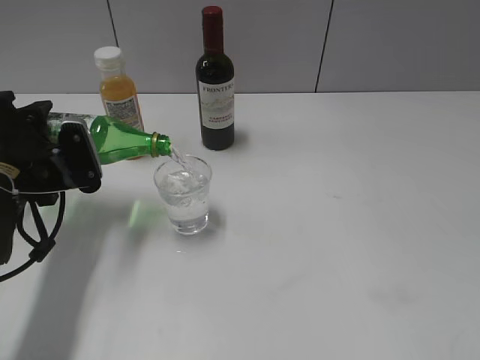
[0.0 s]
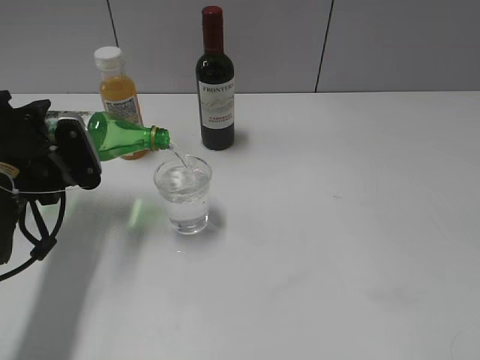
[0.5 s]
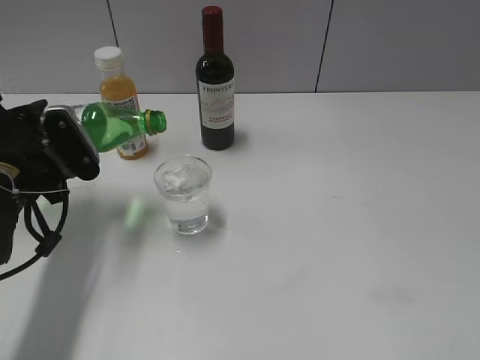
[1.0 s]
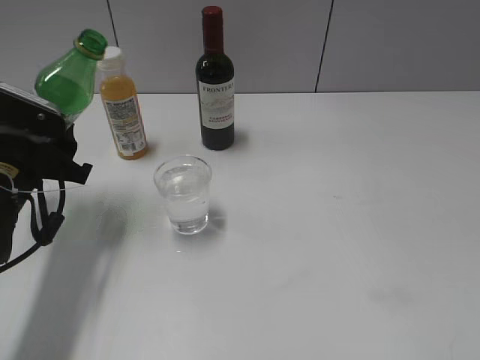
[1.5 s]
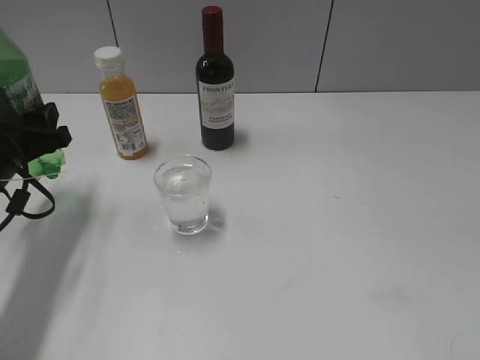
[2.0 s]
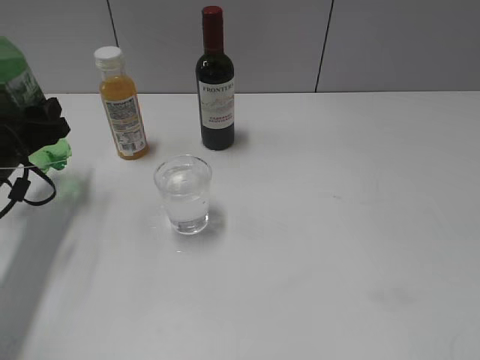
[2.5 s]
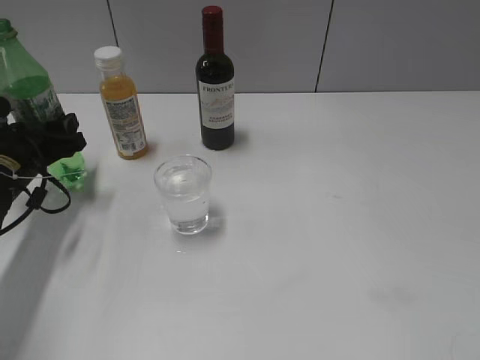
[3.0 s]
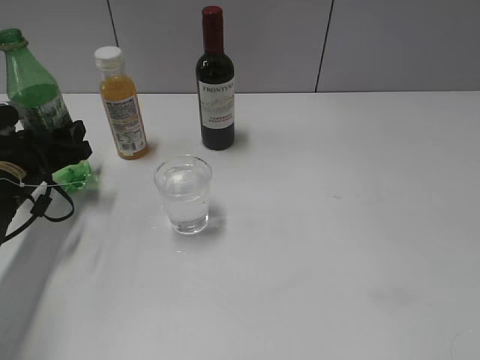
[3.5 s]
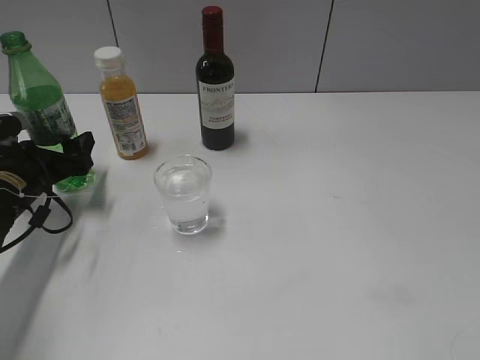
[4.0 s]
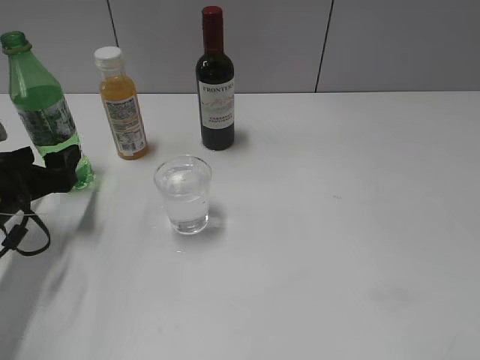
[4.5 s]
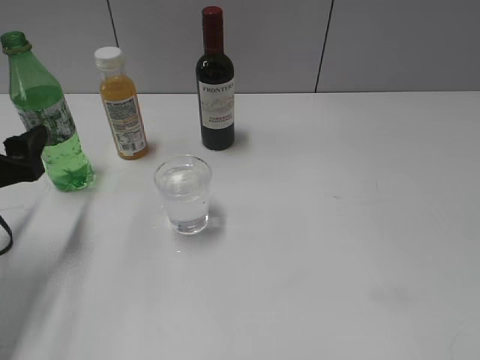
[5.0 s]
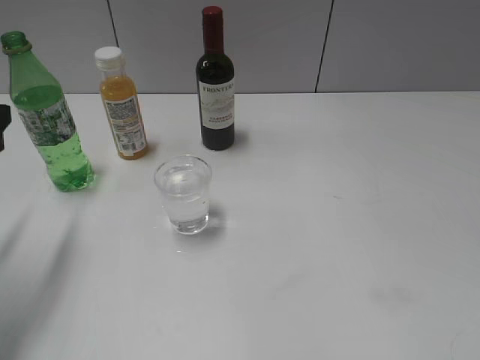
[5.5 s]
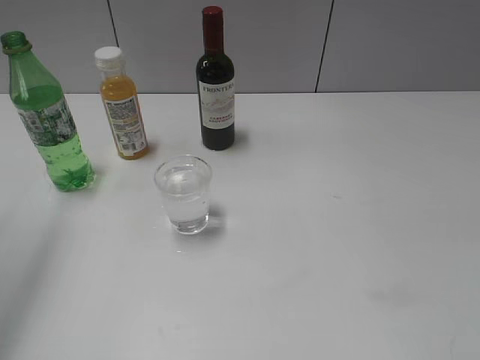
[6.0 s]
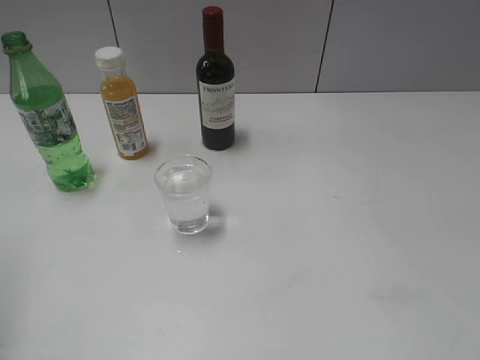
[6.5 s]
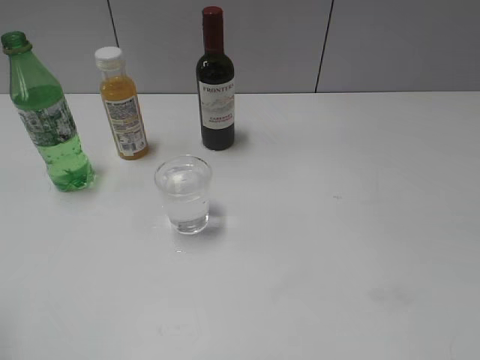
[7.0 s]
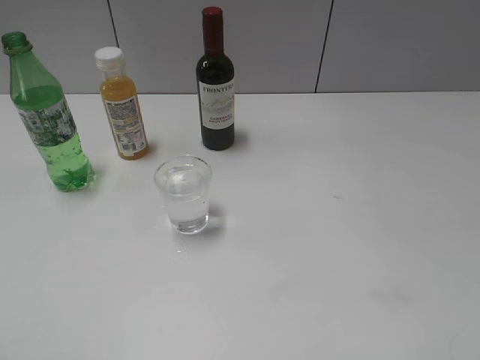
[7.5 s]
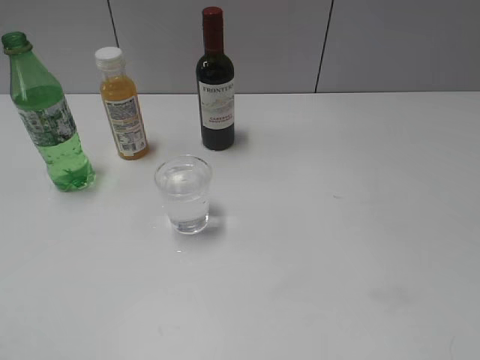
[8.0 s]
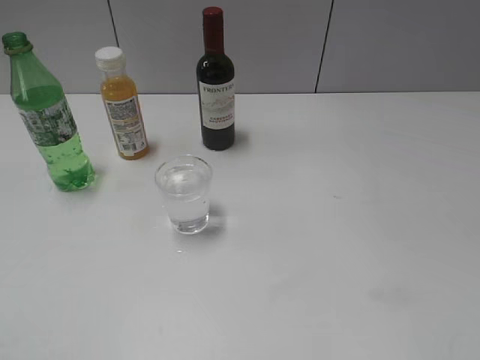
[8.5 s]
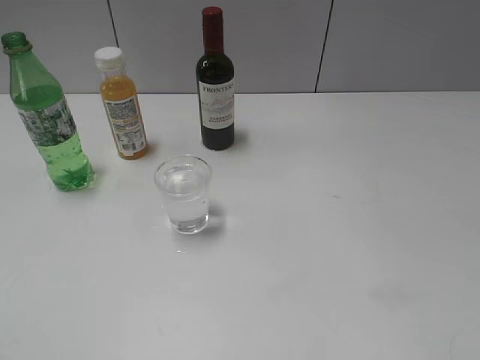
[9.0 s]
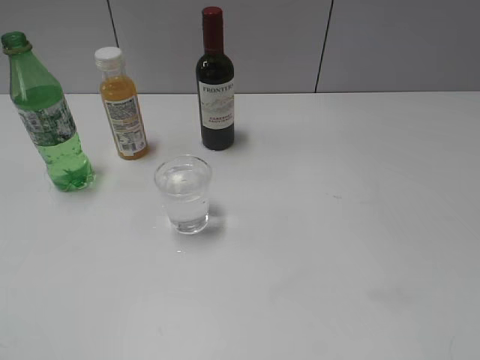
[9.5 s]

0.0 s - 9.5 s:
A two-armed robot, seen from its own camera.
Step, 1.5 s - 4.5 s: Place the sprite bottle on the table with left gripper.
2.0 s - 4.0 s: The left gripper shifts roughly 5 cm downward, and opens.
4.0 s - 5.5 s: The left gripper shifts about 15 cm upward and backward.
5.5 s - 7.5 s: The left gripper shifts approximately 15 cm backward.

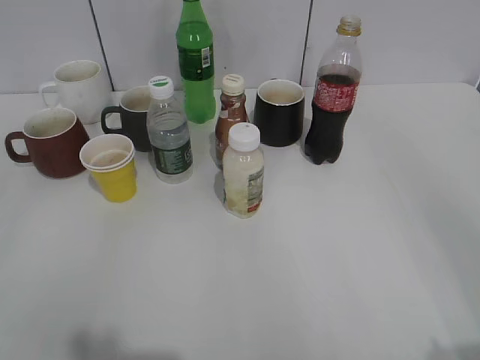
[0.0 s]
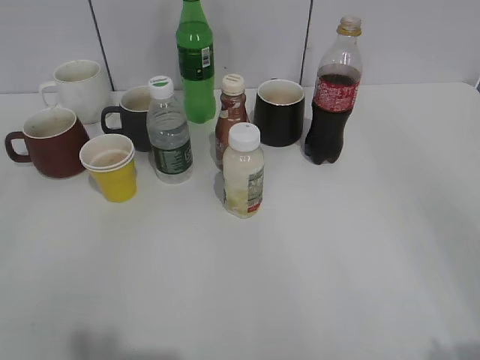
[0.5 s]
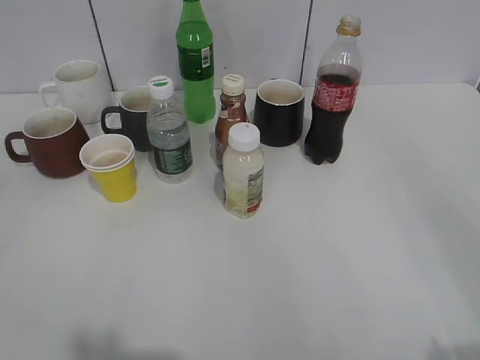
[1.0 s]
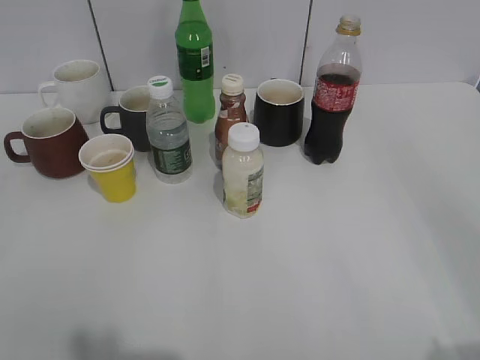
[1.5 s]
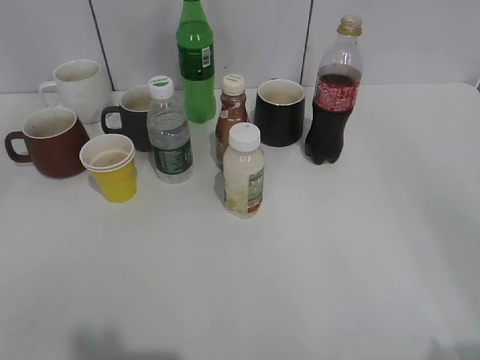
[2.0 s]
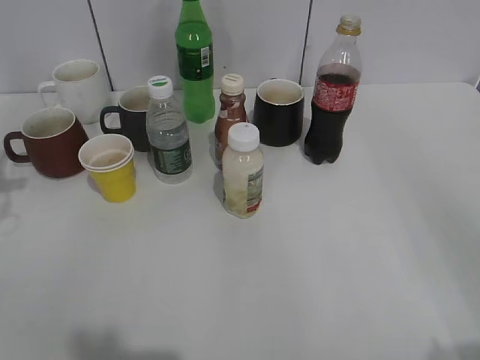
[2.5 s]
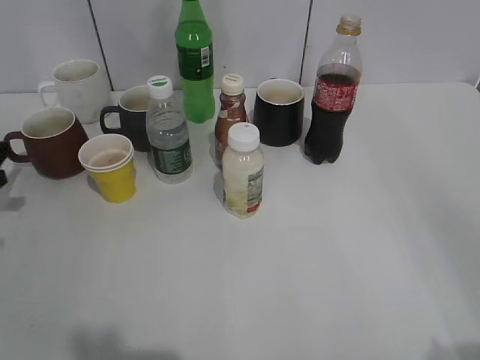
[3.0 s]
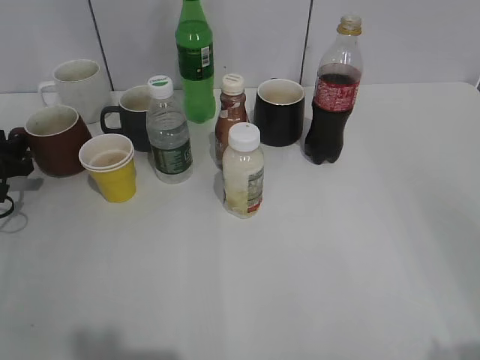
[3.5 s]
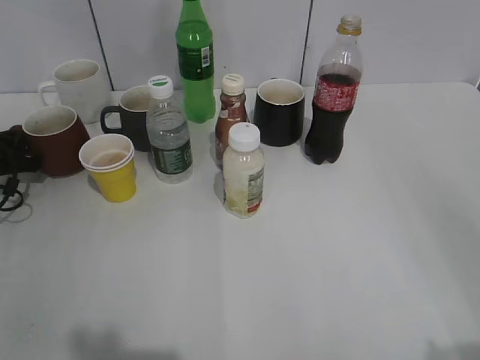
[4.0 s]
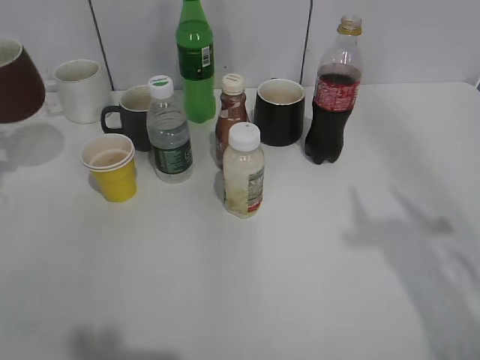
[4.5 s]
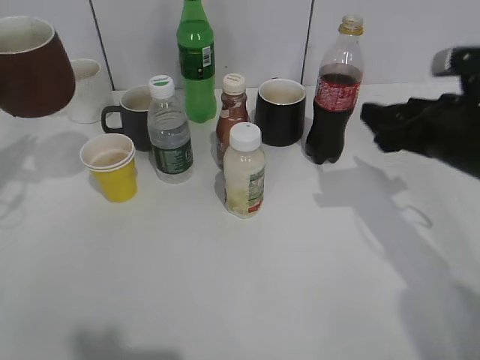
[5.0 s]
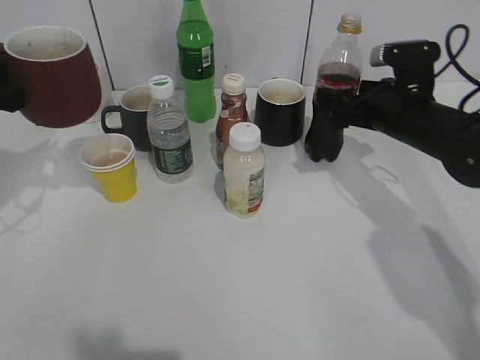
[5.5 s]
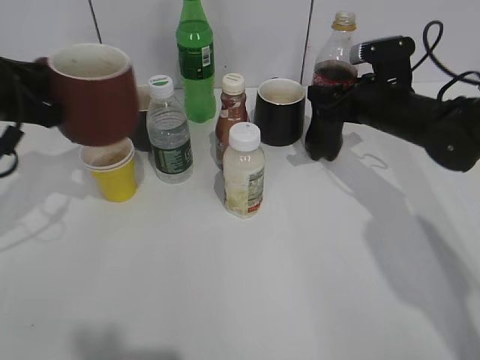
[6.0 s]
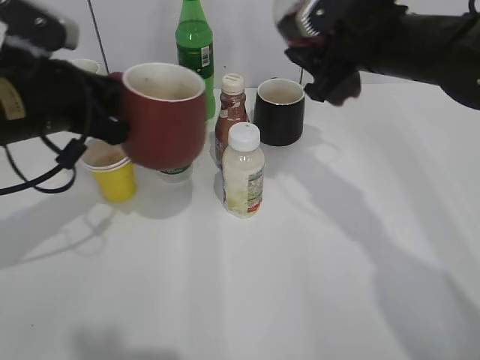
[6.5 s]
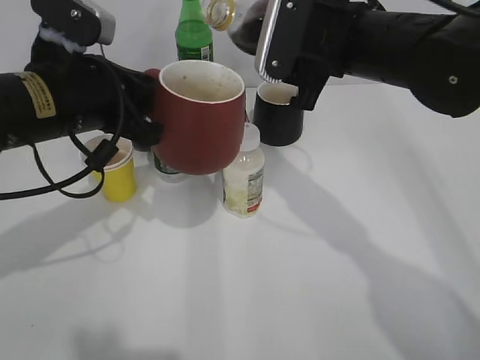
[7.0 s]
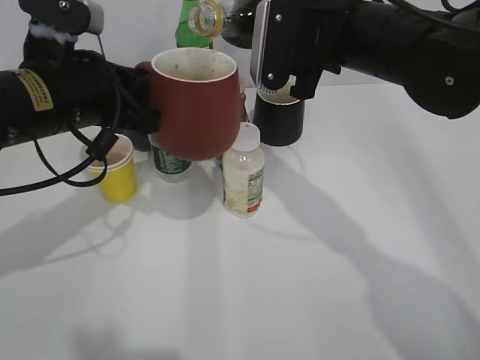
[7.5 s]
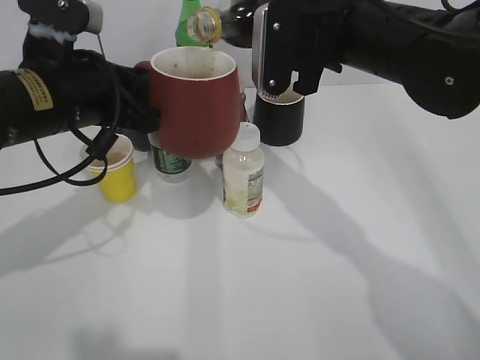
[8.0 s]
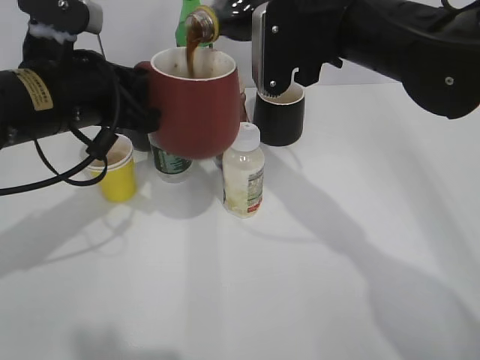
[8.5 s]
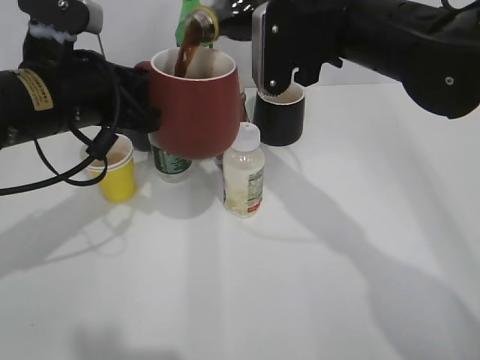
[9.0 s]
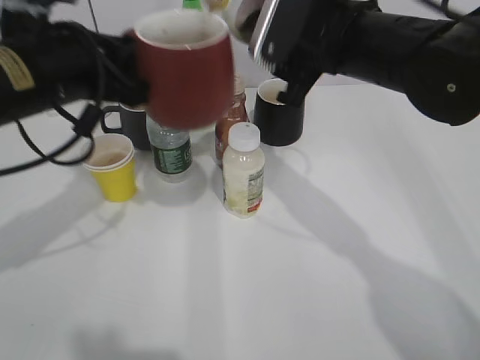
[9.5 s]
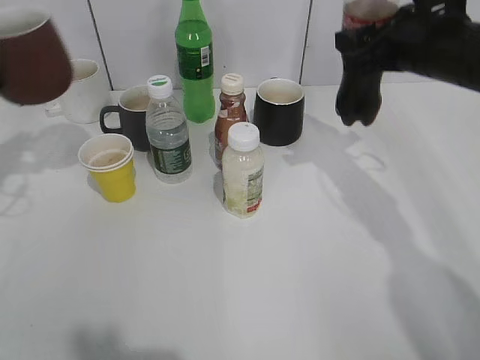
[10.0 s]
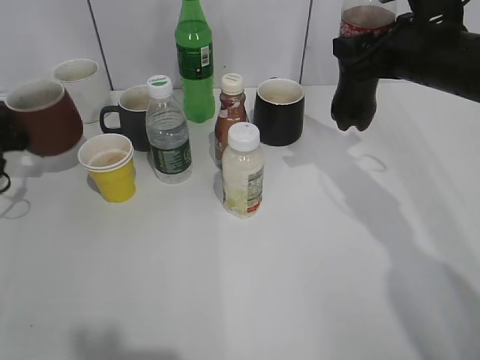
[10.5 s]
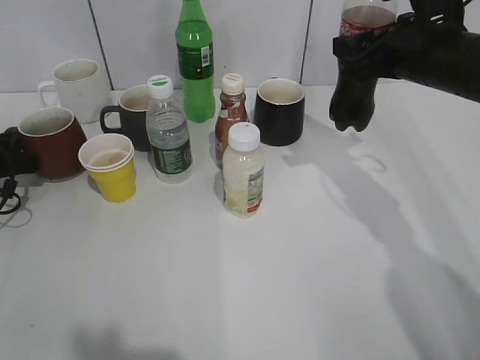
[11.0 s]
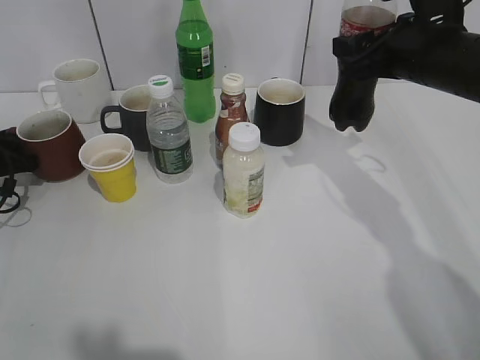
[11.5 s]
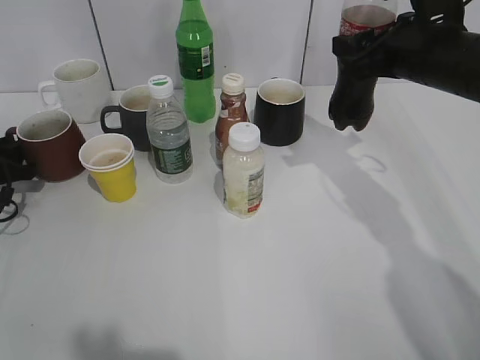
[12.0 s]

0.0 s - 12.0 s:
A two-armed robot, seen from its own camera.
Step, 1.5 s - 3.5 s: Grasp the red cup with left gripper.
Step, 4.5 s - 5.5 s: Grasp the bottle with cola with right gripper.
Step, 6.0 s - 9.5 s: Pour the cola from bottle to cup with right gripper.
2.0 s - 4.0 s: The left gripper goes about 40 cm downward and forward, and closes.
4.0 s - 6.0 s: The left gripper goes approximately 20 cm upward, to the right and backward. The right gripper is displaced forward by roughly 40 cm, and closes.
6.0 s - 8.0 s: The right gripper travels upward, to the left and backward by about 20 cm; the left gripper is displaced to the right by some 10 cm.
8.0 s - 10.0 s: The left gripper travels to the left by approximately 15 cm, while the right gripper shifts roughly 10 cm to the right.
10.0 s - 12.0 s: The left gripper shifts roughly 15 cm downward, and opens its fingers.

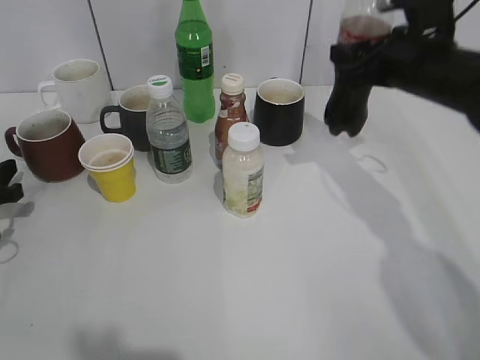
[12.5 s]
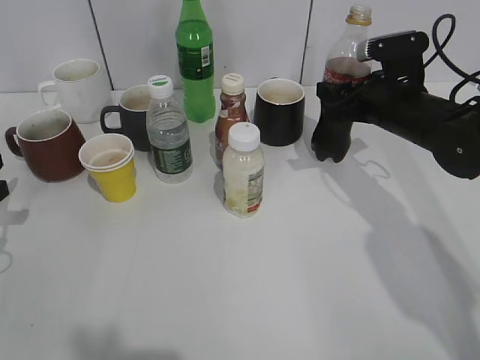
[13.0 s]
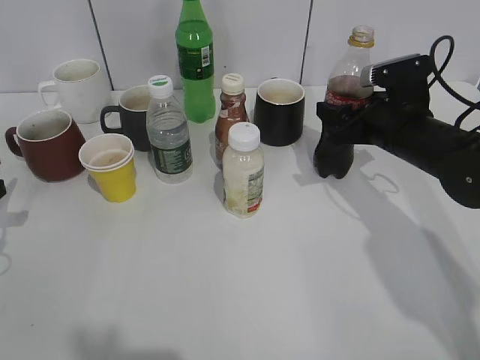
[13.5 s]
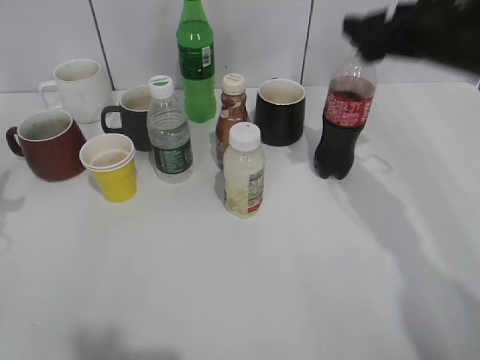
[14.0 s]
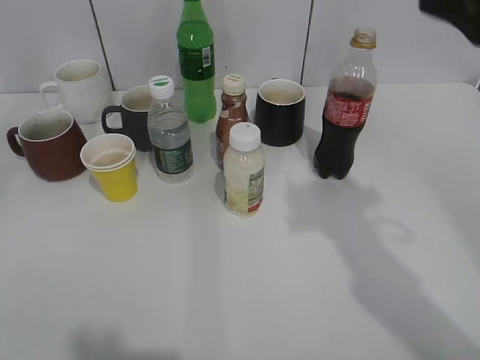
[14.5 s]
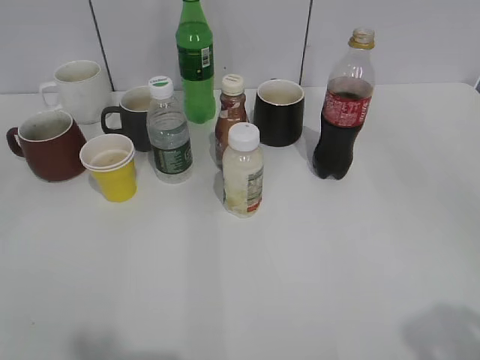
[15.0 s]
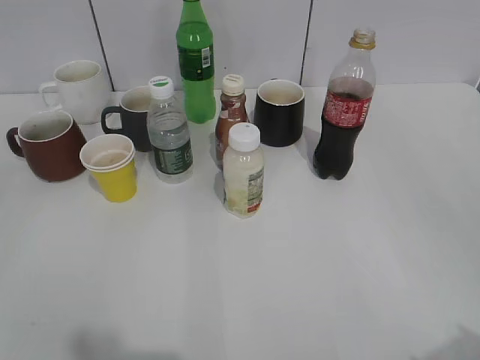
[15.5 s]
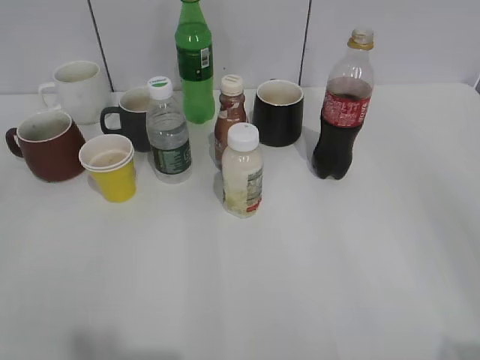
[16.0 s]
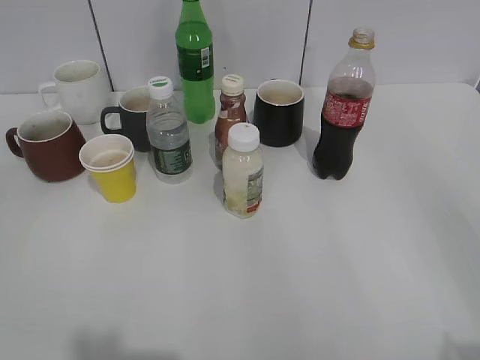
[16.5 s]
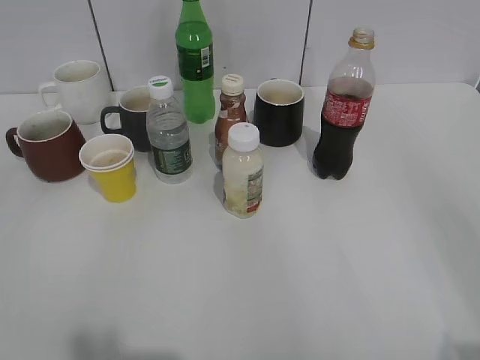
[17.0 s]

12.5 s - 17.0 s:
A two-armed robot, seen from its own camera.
12.5 s - 14.5 s: The left gripper moves upward and backward, about 30 cm. Meanwhile the right gripper heads backward and upward, covering some 25 cm, and opens its fingers.
14.5 s - 17.0 s: The right gripper moves backward and to the right, approximately 25 cm; the left gripper goes approximately 15 cm backward.
